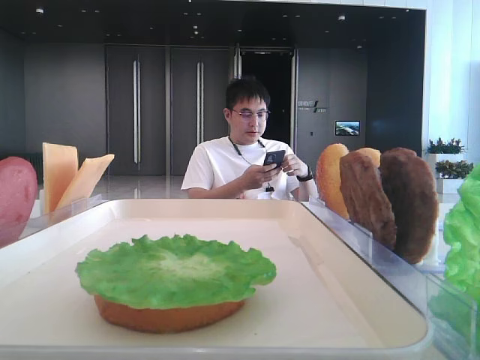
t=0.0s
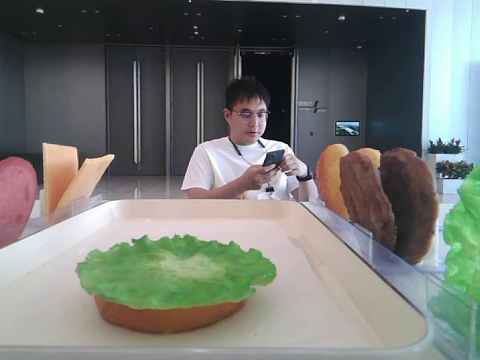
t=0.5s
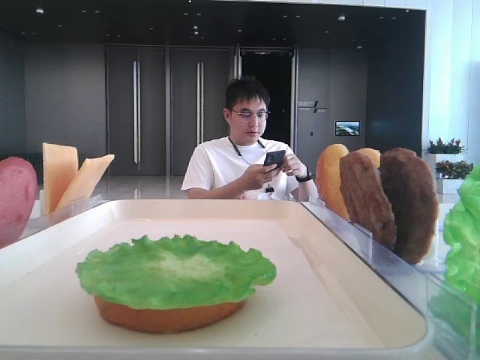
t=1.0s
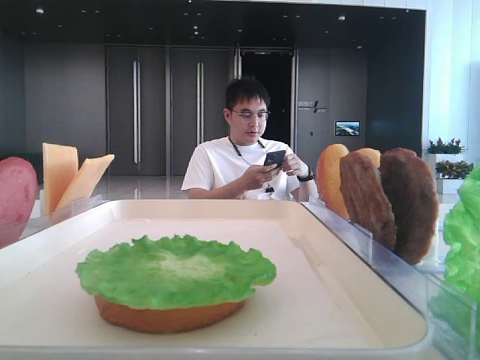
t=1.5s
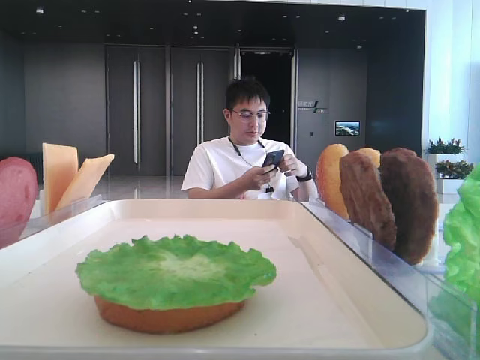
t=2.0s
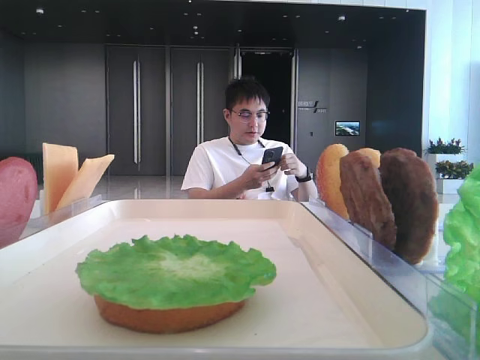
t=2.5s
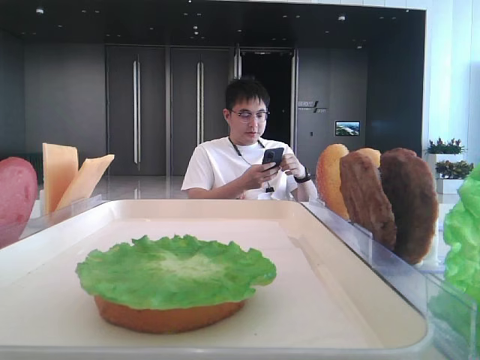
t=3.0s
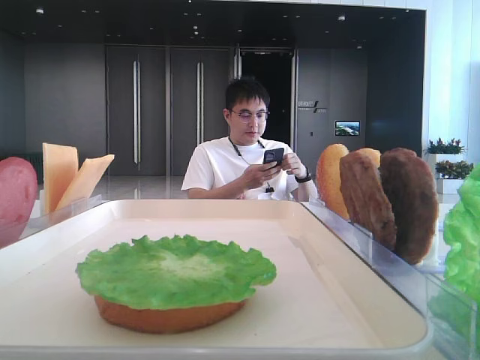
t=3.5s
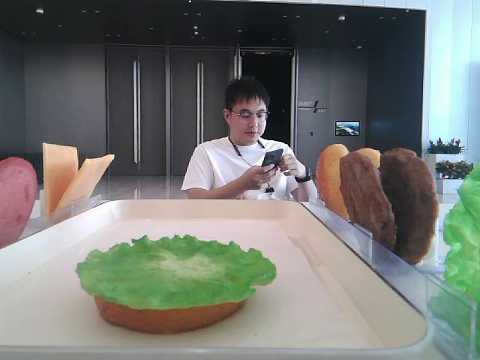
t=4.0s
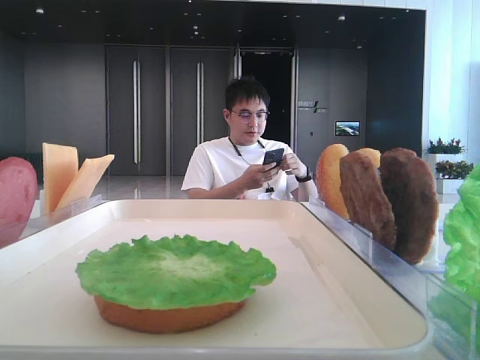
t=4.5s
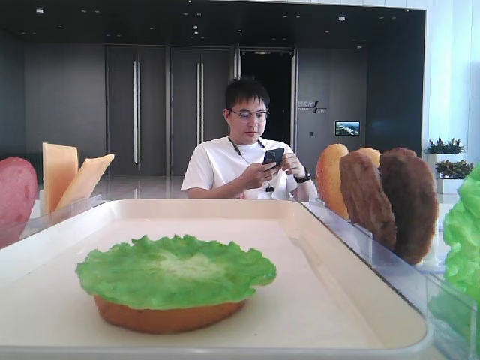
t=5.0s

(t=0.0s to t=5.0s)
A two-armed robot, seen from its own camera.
t=2.5s - t=5.0s: Both grippers stay about where they are.

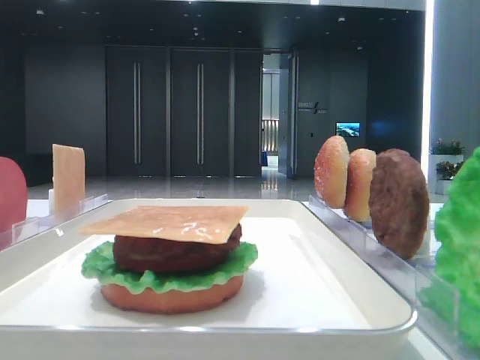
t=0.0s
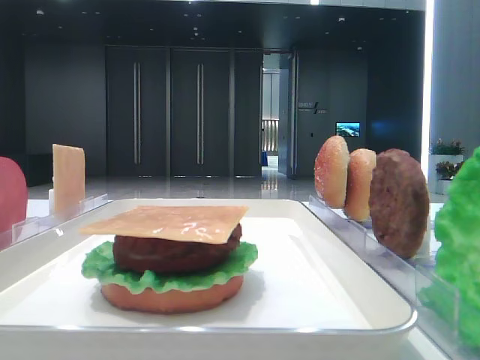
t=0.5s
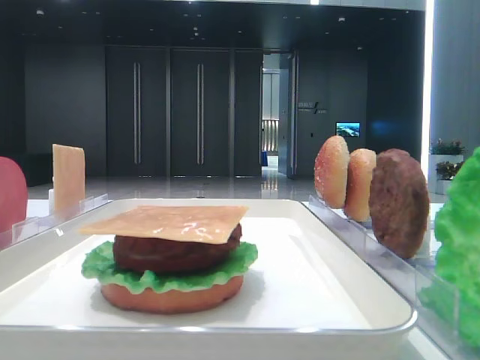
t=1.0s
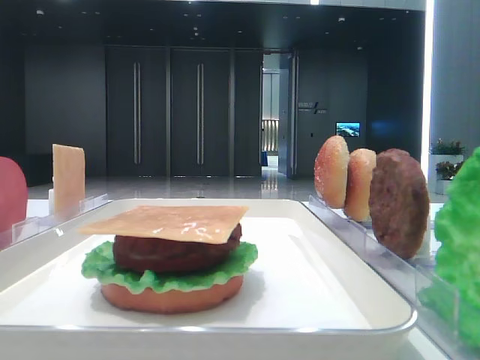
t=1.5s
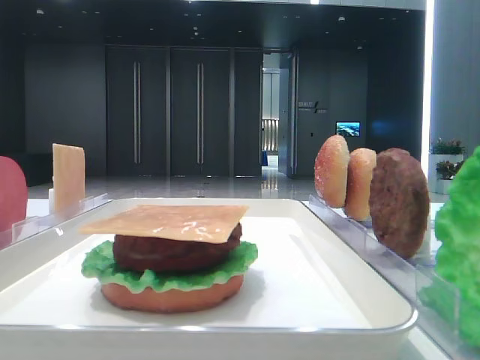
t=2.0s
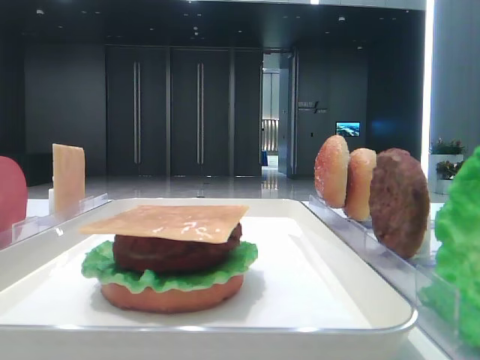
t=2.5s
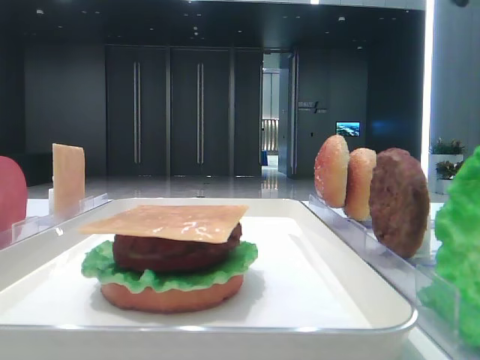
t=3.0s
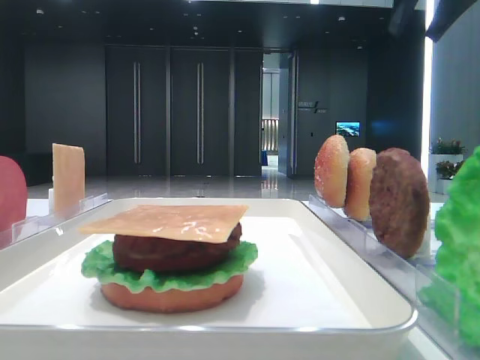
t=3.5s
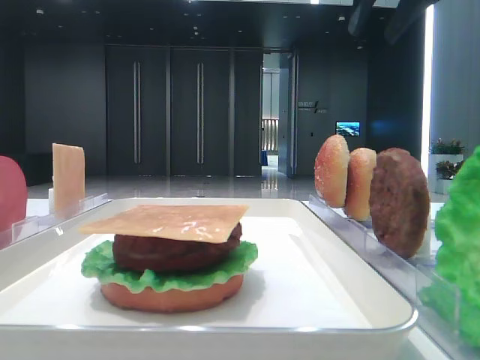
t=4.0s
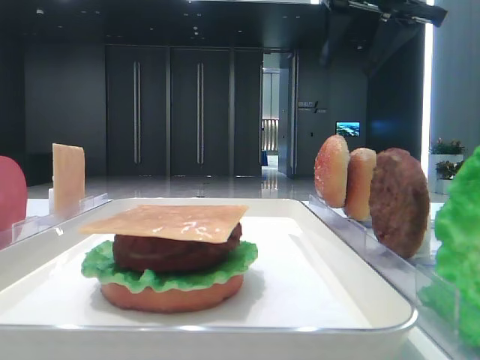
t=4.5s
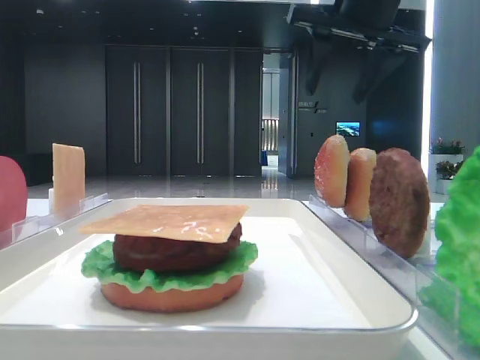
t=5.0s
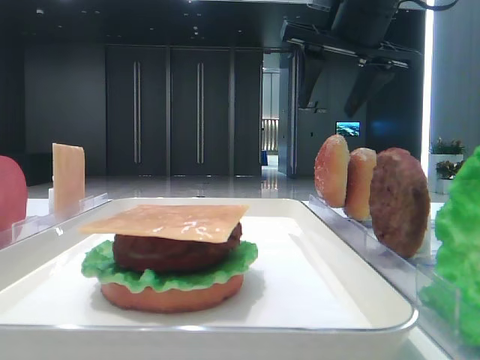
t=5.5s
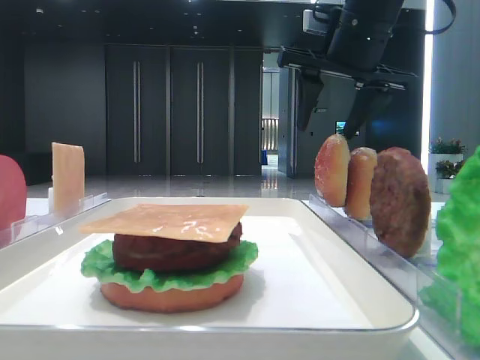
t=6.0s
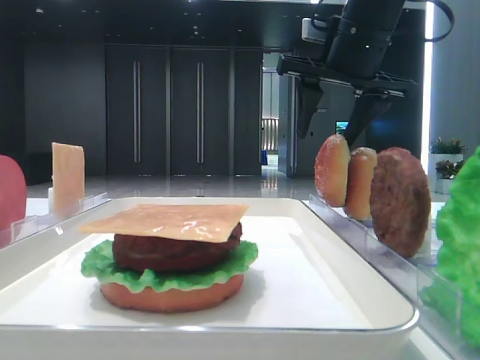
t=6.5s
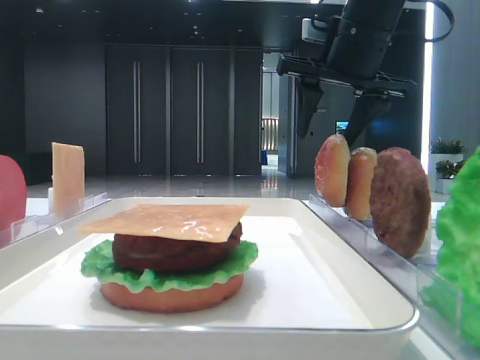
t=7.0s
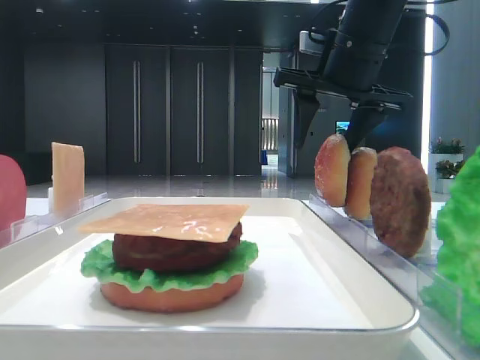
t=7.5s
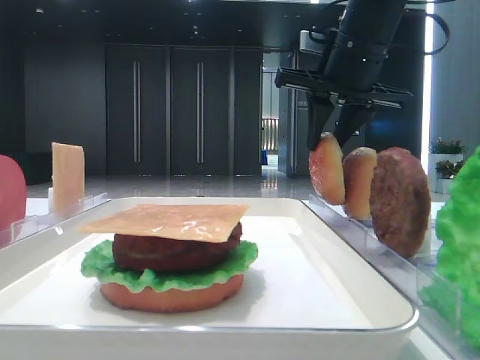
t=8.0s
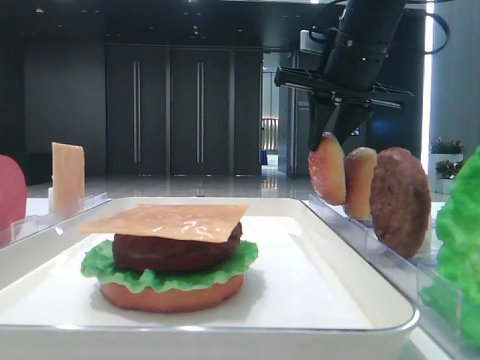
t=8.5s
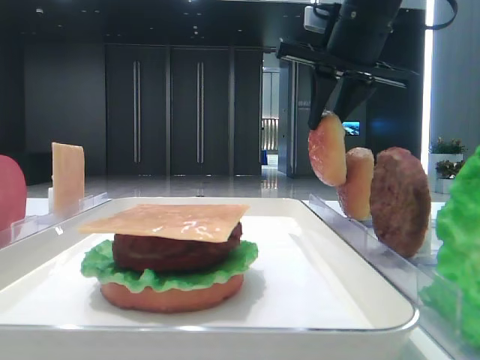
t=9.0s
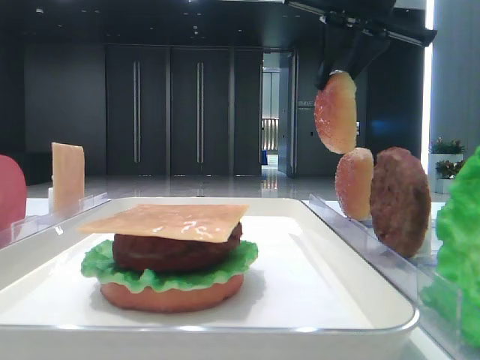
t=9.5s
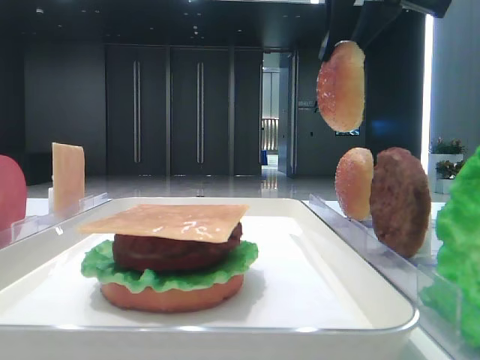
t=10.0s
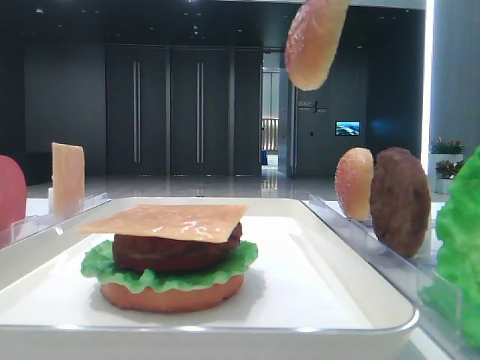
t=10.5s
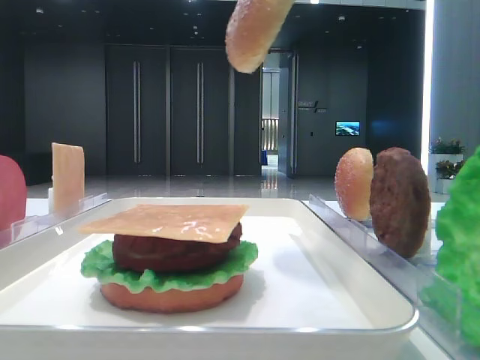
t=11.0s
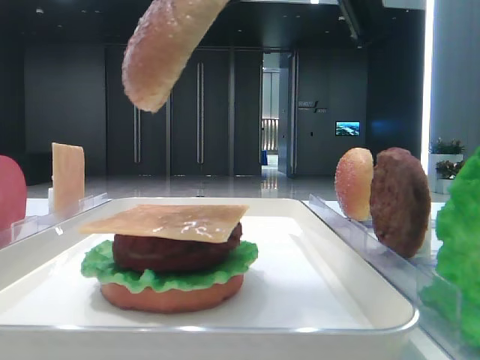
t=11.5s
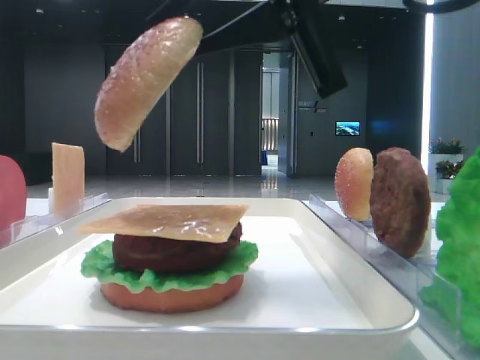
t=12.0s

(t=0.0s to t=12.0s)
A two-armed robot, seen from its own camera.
Step, t=0.0s - t=8.5s: Pick up the top bread slice with the right hand.
t=4.0s - t=6.0s: The right gripper is displaced downward and to the left by some 10 cm.
t=6.0s - t=8.0s: The right gripper closes up.
t=8.0s - t=10.0s: The right gripper shifts approximately 10 cm upward and backward.
t=10.0s - t=12.0s: The right gripper is displaced backward, downward and to the left by approximately 15 cm.

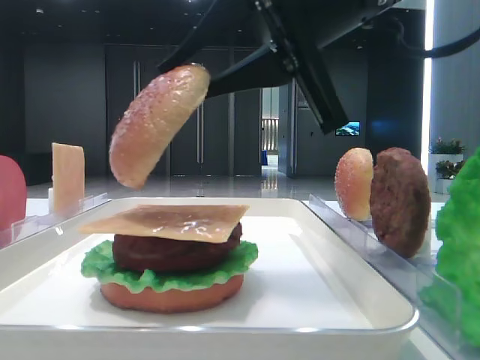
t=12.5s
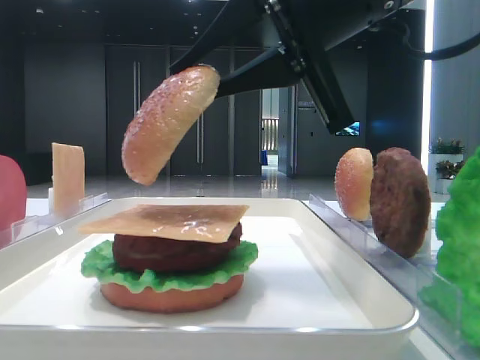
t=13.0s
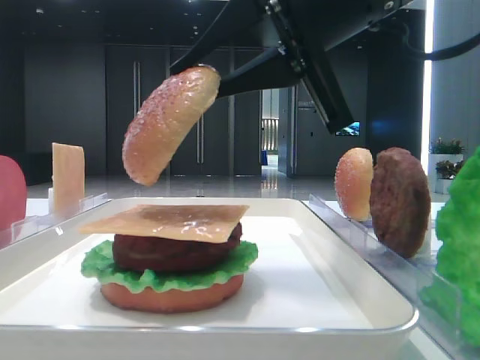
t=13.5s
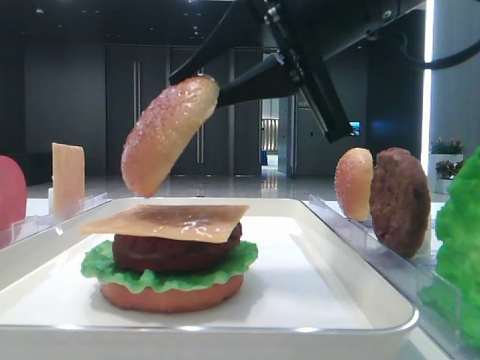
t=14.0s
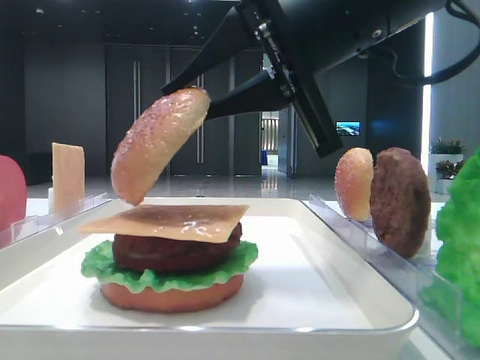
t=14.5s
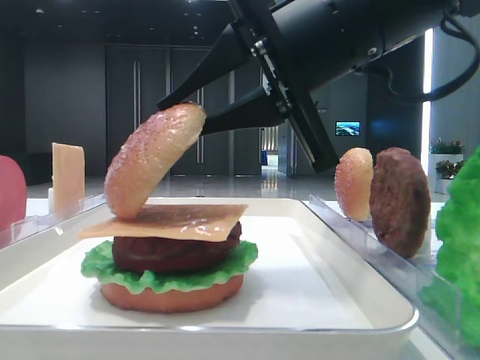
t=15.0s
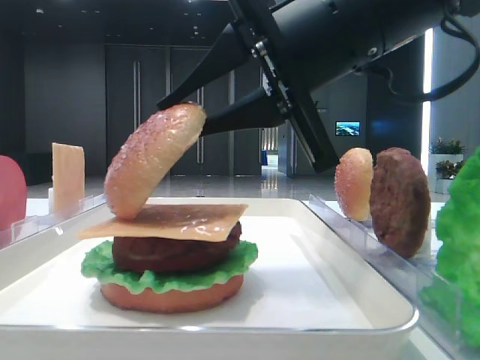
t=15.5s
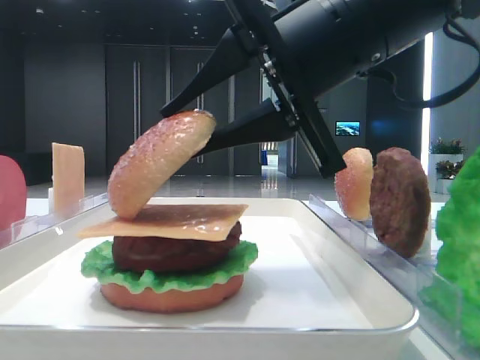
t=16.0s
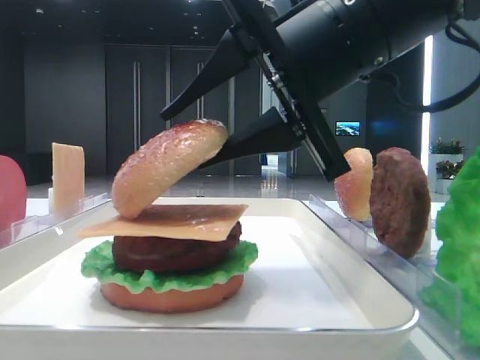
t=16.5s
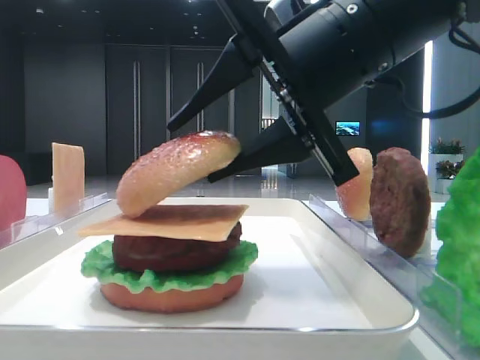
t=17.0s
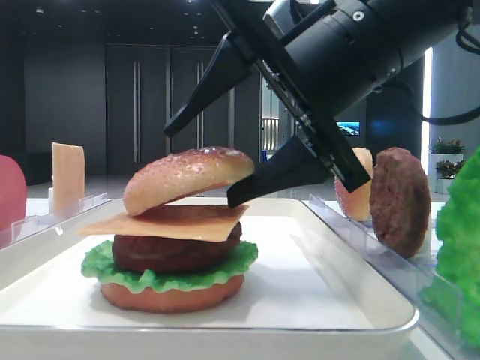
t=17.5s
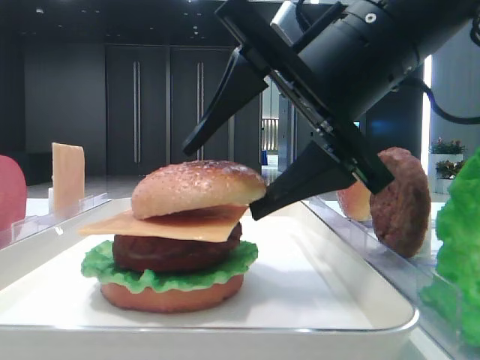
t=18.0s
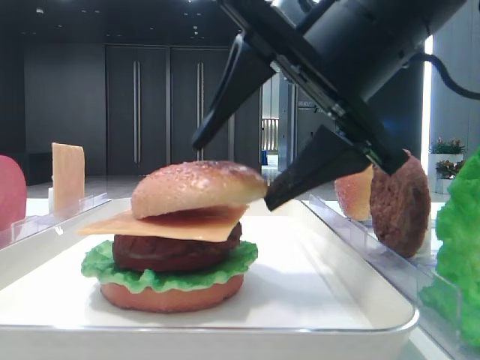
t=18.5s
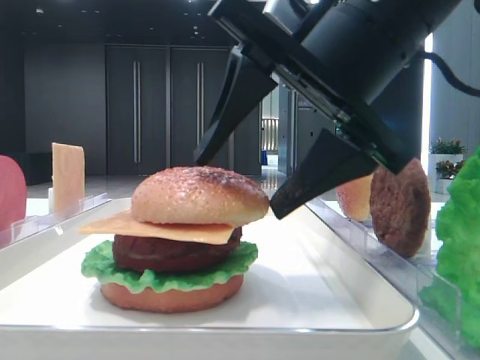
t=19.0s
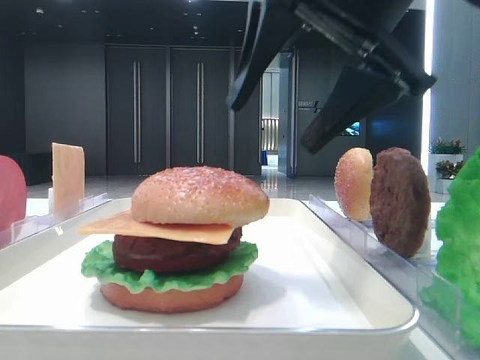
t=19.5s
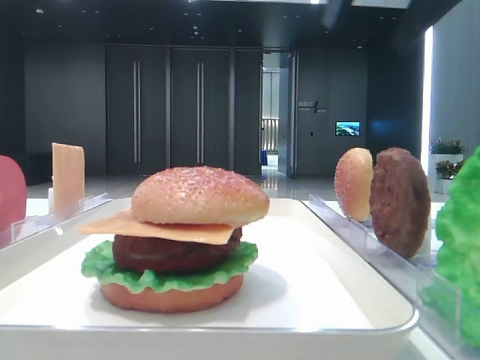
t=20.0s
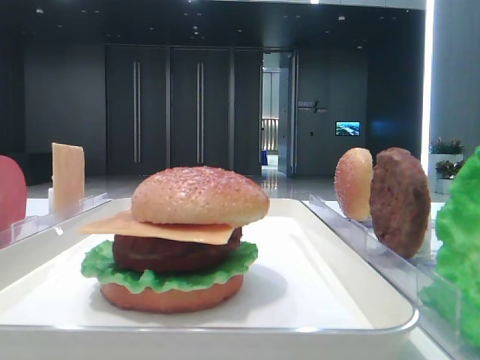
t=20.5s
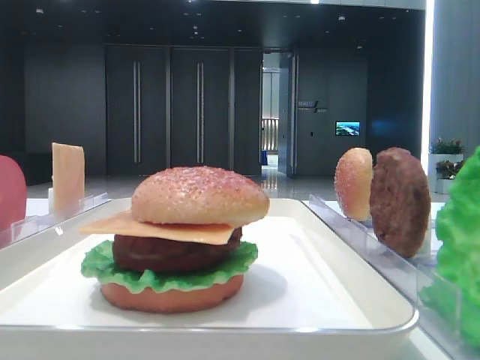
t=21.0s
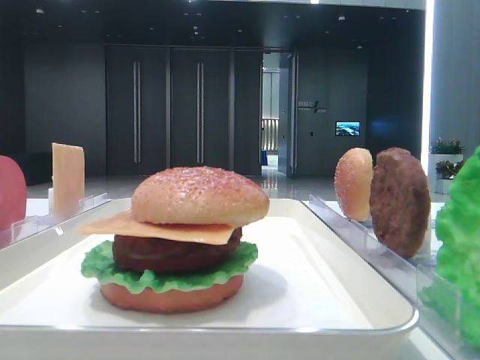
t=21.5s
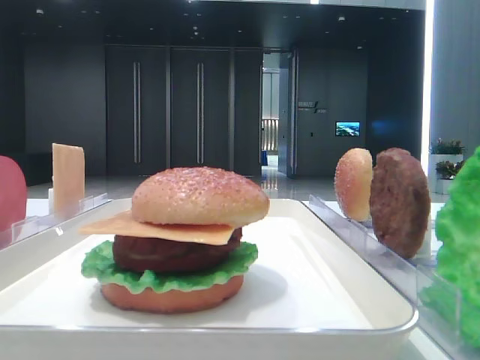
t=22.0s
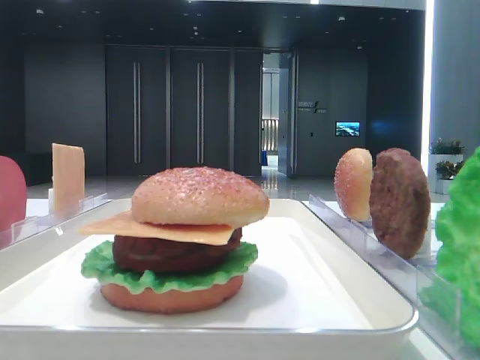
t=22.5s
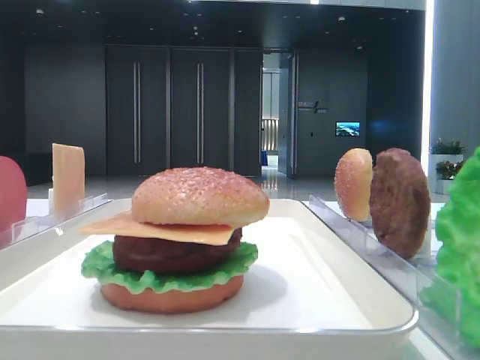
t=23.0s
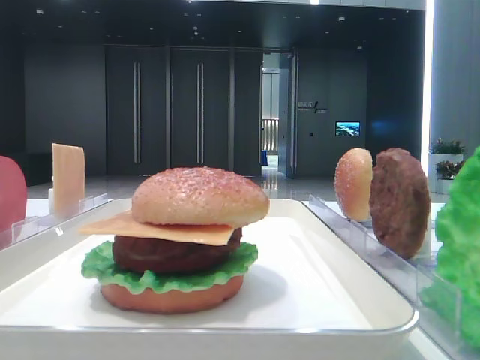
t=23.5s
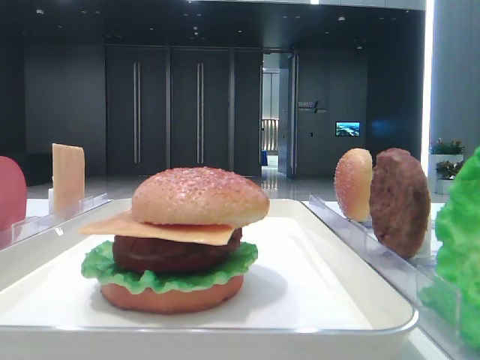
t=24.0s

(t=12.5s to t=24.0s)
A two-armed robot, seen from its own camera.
Step, t=12.5s - t=19.0s: Place the top bread slice on the cheese with the right hand.
t=12.5s - t=14.5s: The grippers make only small movements.
t=14.5s - t=16.5s: The right gripper opens up.
t=16.5s - t=18.5s: The right gripper opens its fingers.
t=18.5s - t=20.0s: The right gripper goes roughly 15 cm upward and to the right.
t=20.0s - t=22.0s: The right gripper moves backward and to the right, approximately 20 cm.
